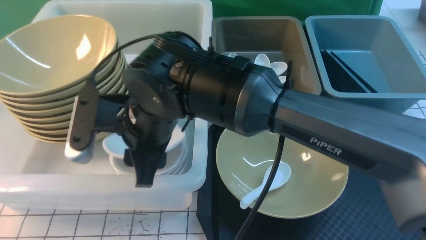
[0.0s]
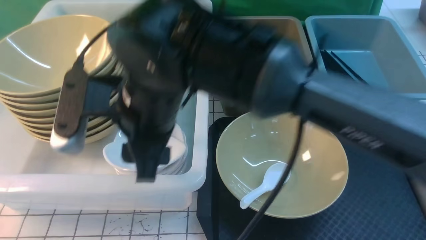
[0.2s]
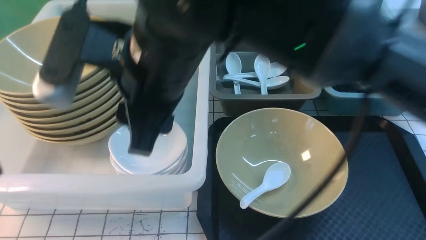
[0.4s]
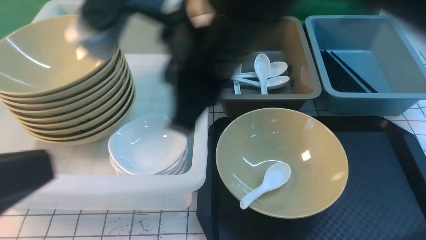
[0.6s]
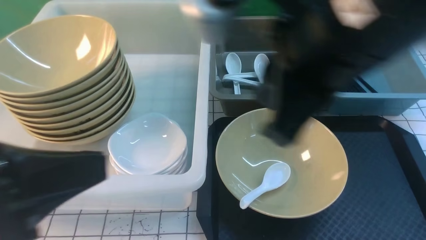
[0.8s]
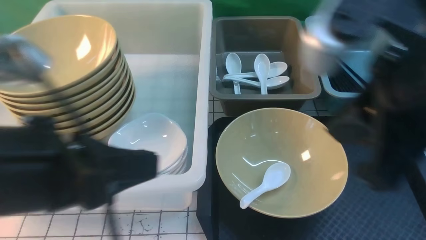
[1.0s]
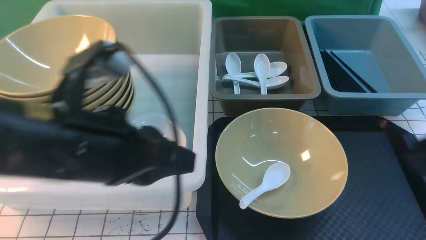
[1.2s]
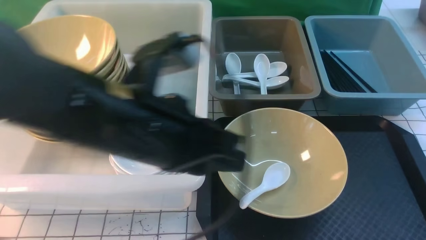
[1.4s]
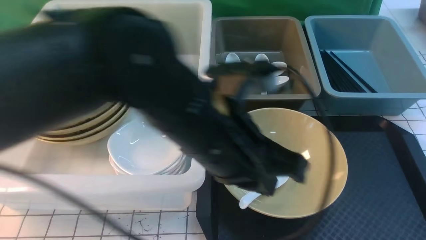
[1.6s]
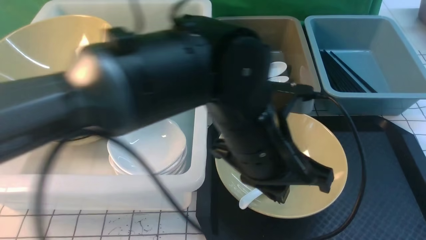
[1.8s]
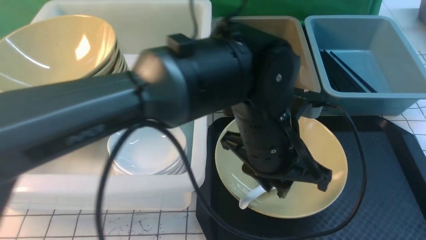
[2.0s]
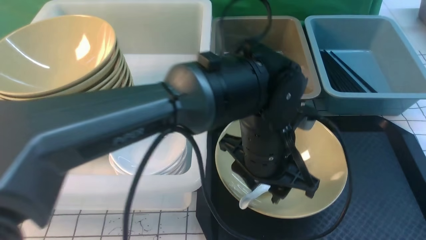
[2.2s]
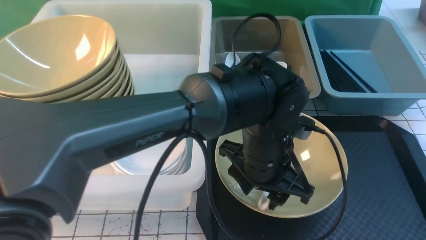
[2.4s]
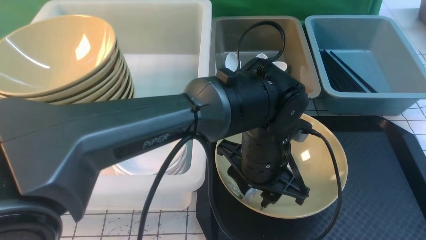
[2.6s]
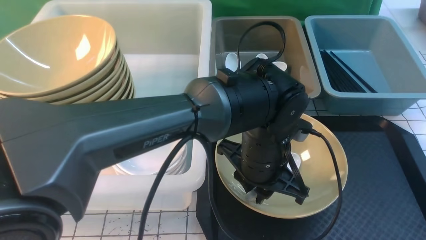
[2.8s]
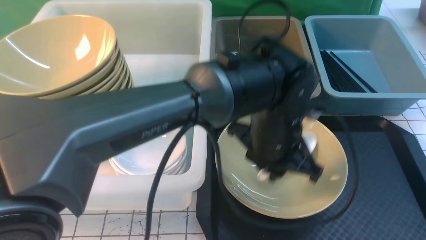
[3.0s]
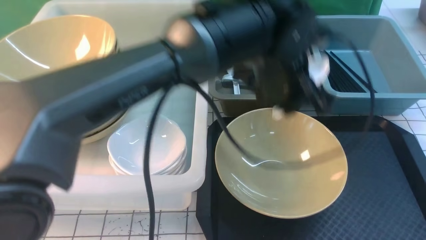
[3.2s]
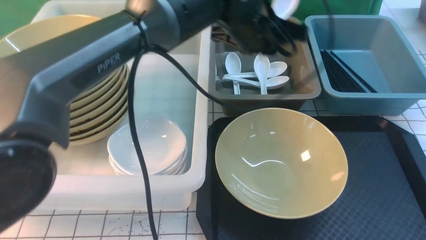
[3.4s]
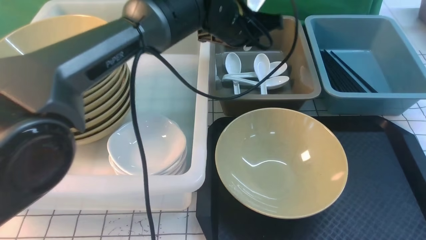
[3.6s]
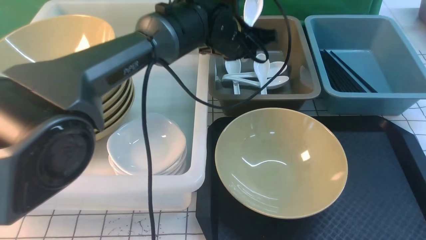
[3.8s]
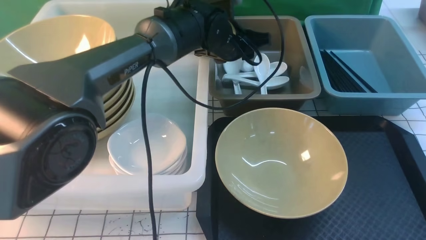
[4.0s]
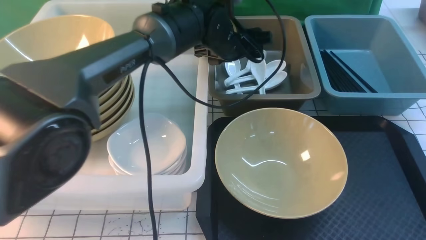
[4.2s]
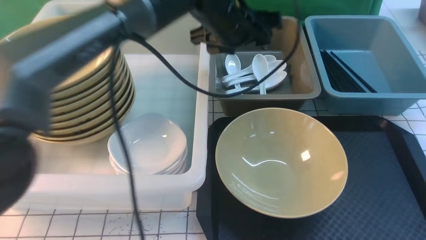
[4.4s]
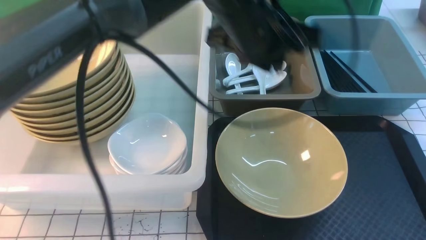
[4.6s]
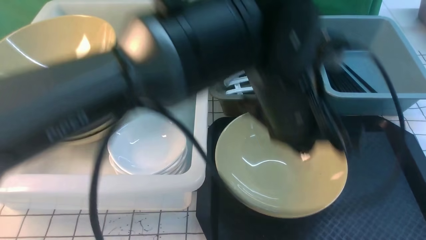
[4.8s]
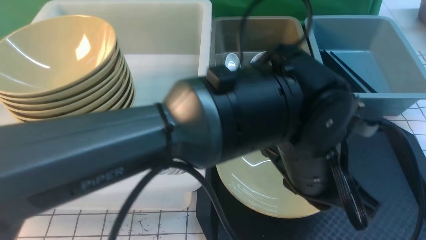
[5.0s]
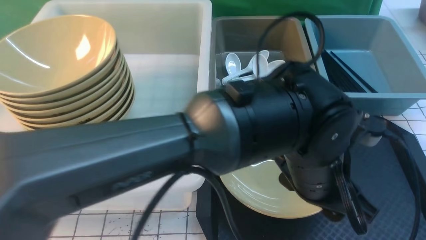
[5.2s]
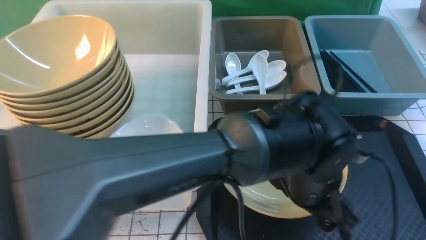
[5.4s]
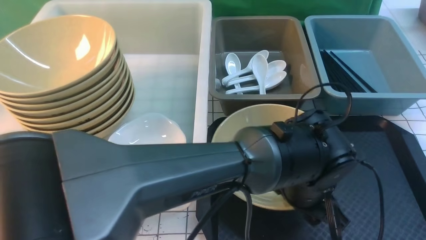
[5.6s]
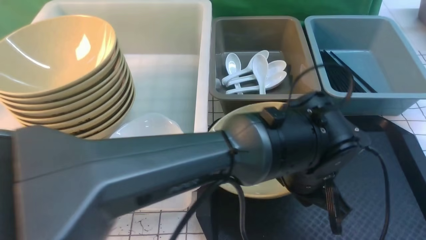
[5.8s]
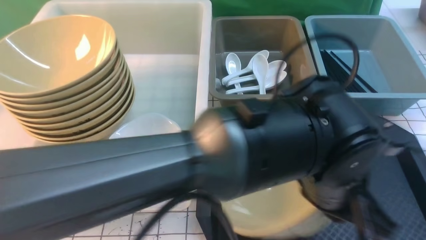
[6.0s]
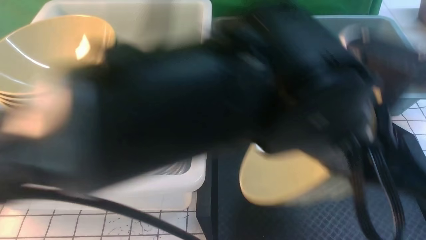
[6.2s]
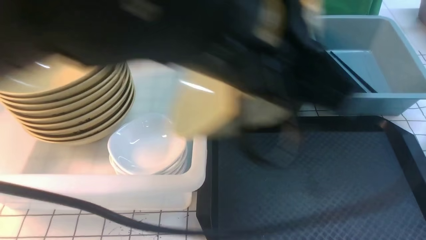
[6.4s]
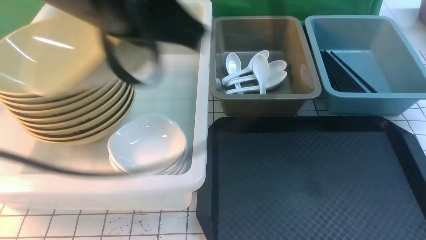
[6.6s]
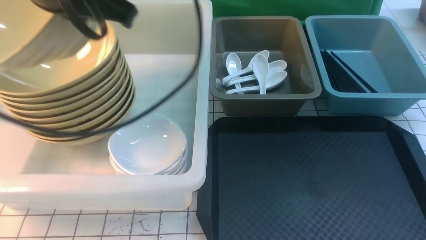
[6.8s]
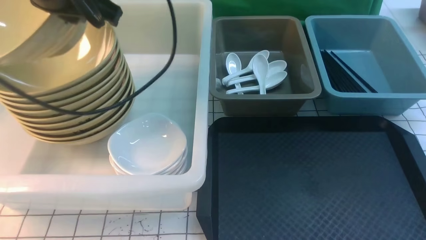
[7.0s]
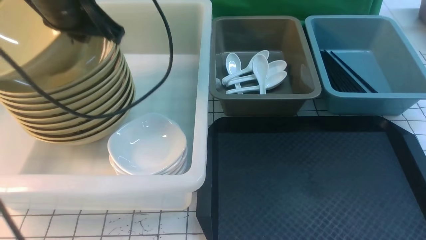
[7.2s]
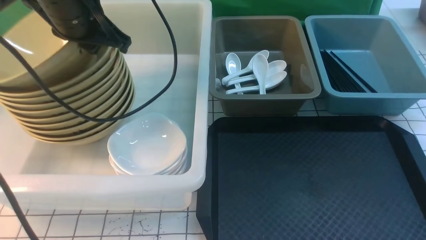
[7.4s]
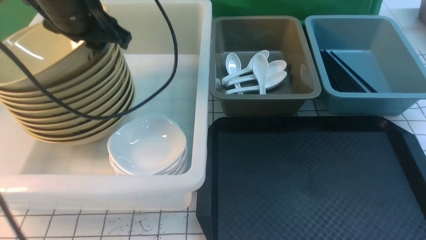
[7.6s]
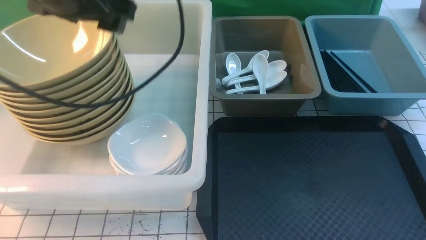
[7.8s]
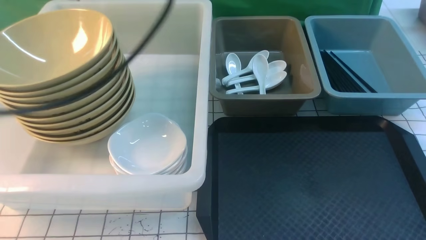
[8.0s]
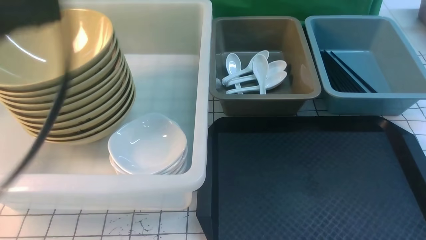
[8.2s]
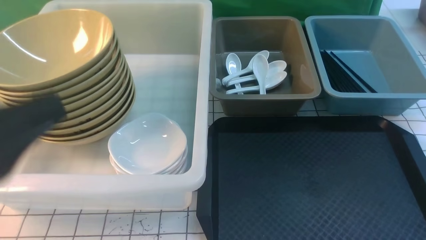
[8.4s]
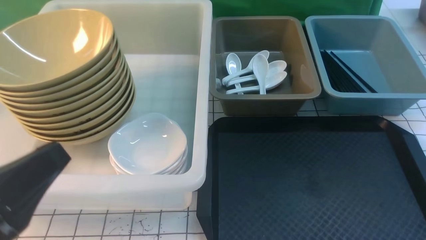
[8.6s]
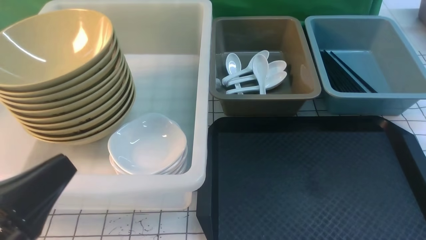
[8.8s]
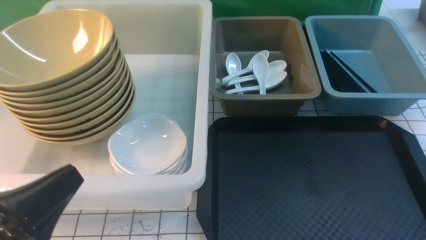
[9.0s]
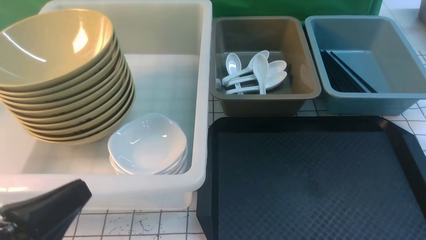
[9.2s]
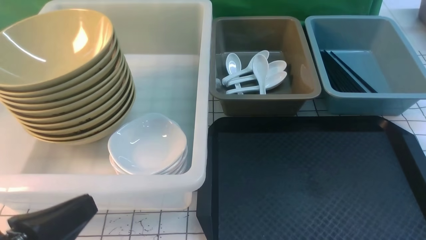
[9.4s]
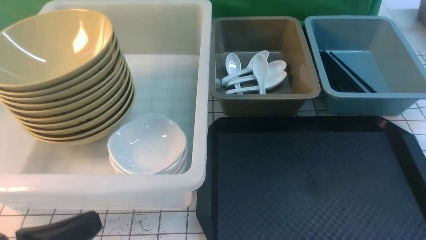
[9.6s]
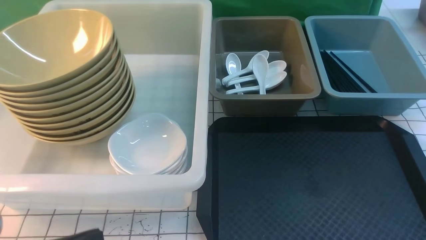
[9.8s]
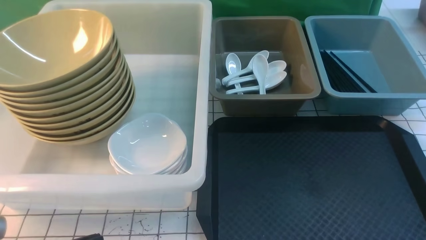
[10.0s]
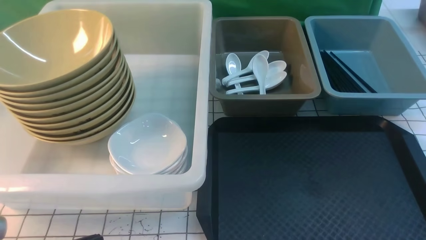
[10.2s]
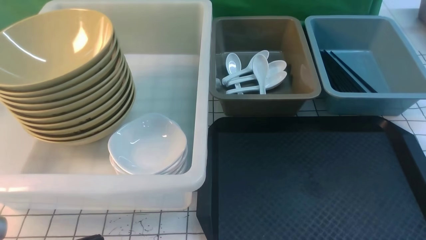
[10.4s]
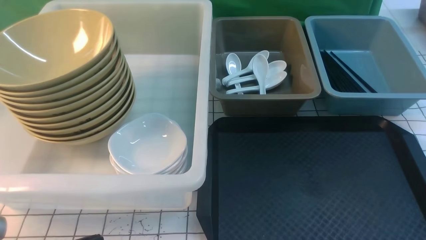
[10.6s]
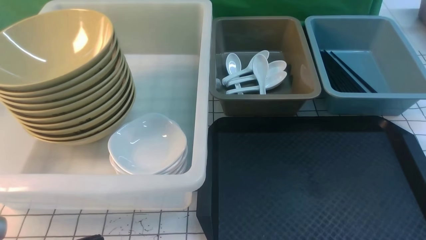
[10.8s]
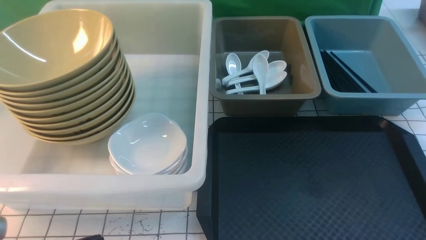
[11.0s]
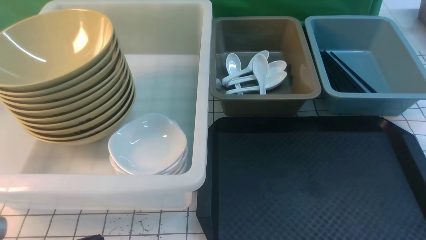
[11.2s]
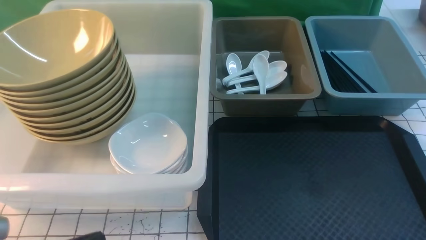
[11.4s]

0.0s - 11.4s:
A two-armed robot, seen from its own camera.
Task of the whole recording: on white black table put chopsticks spoon bowls plates into blue grey white boxes.
Step, 0.8s - 2.8s: use the left arm to grab the soup spoon in the middle.
Step, 3.2s - 4.4s: use the left arm to put the soup spoon into the small storage box in the middle.
Step, 4.6s - 6.0s: use the left arm to grab the yellow noodle bowl on the left.
Step, 6.4s - 7.6s: use the left arm to put the noodle bowl into the large storage box on the left.
0.0s - 1.4s: The right gripper travels to the right and backward by some 40 cm, and closes. The left gripper goes roughly 25 cm to the right and forward.
1.4s - 2.8s: The right gripper heads to the right and backward, covering about 10 cm; the left gripper is displaced to the right, downward and forward by approximately 20 cm, and opens, then closes again.
2.8s - 4.2s: The left gripper travels forward by roughly 15 cm, and opens.
4.2s - 5.6s: The left gripper travels backward and to the right by some 25 cm, and closes and opens again.
5.6s - 7.2s: The left gripper is displaced to the left, upward and forward by approximately 35 cm, and closes its fingers. The right gripper travels to the left and forward by approximately 10 cm.
7.2s - 8.6s: The left gripper heads backward, covering some 30 cm, and opens and closes again; the right gripper shifts about 5 cm downward.
8.6s - 10.0s: The left gripper travels downward by roughly 10 cm.

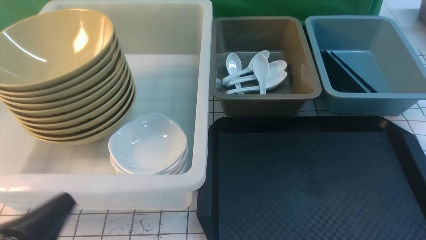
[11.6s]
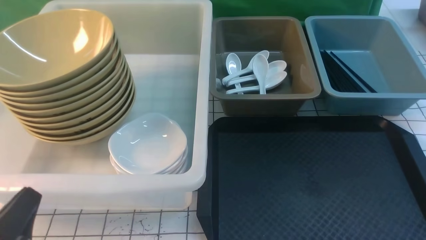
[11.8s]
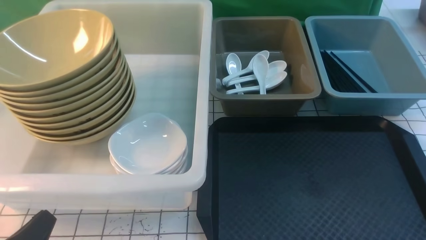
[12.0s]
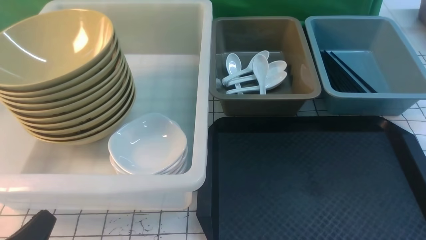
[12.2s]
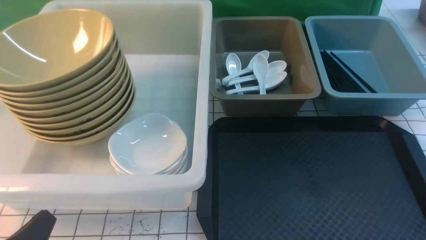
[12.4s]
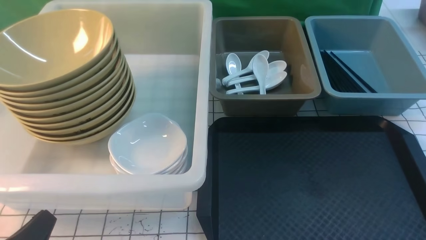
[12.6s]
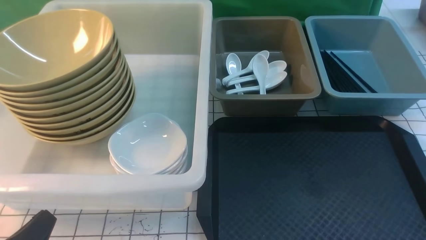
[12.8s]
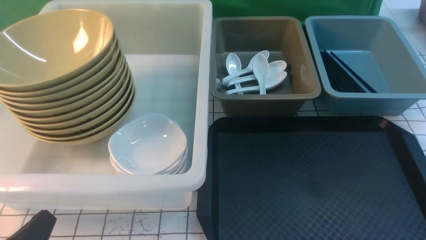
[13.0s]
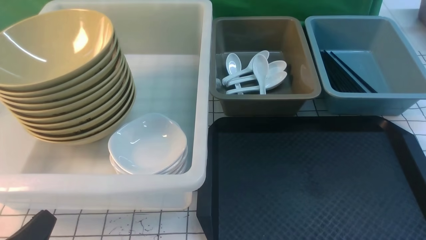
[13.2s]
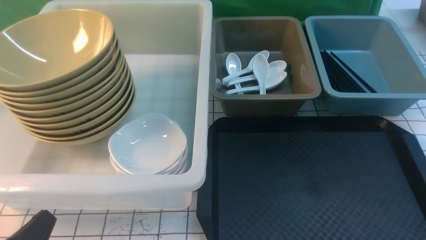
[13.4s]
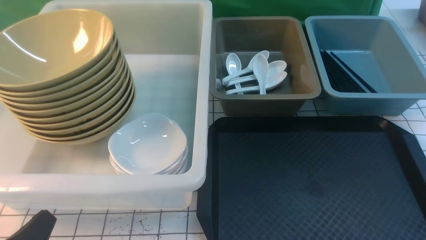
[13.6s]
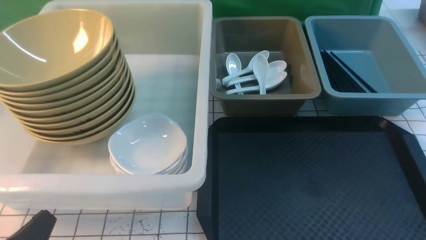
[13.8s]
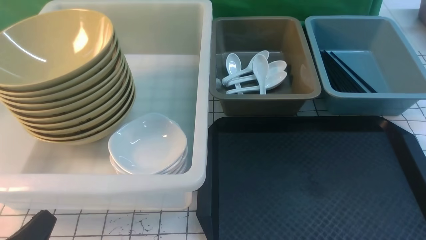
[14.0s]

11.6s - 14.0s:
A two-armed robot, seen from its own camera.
Task of the whole recording: on white black table put chopsticks spoon bowls plates into blue grey white boxes.
11.6s - 12.8s: The grippers move only a little.
12.8s - 14.0s: The two grippers keep their place.

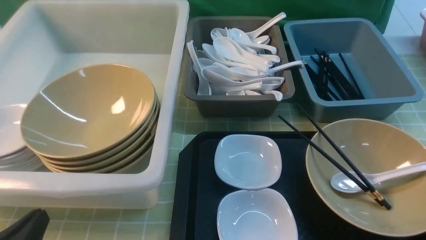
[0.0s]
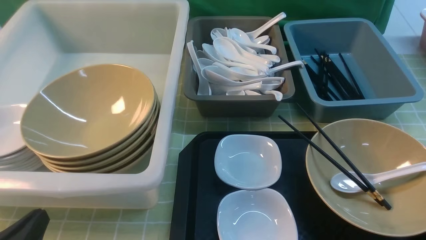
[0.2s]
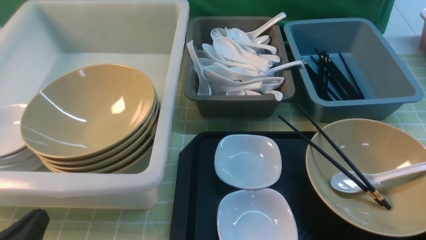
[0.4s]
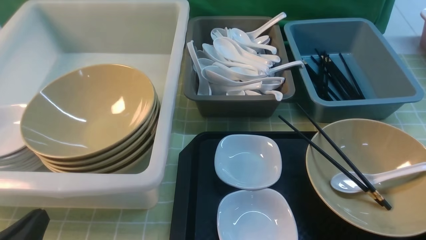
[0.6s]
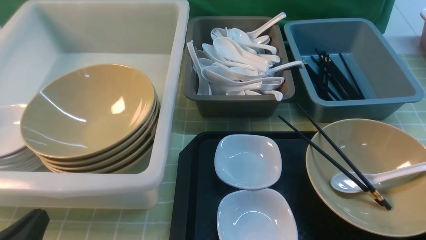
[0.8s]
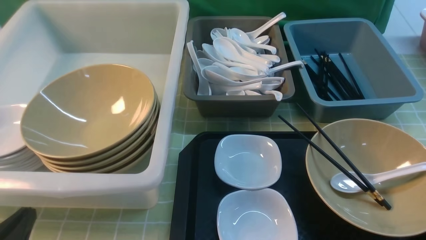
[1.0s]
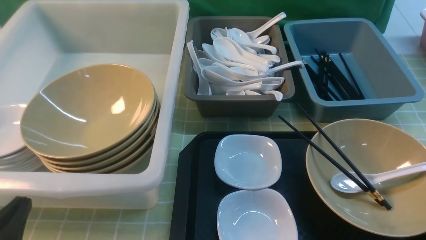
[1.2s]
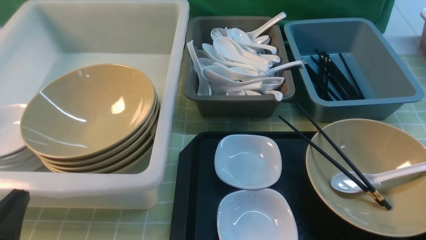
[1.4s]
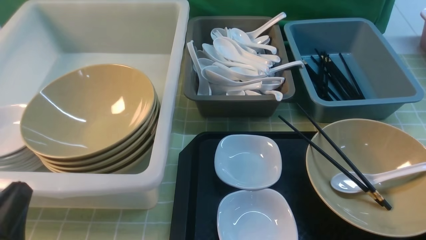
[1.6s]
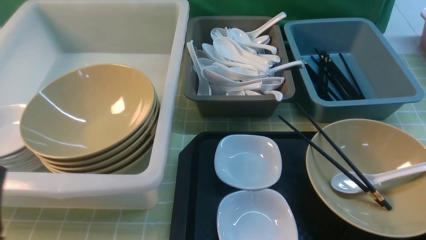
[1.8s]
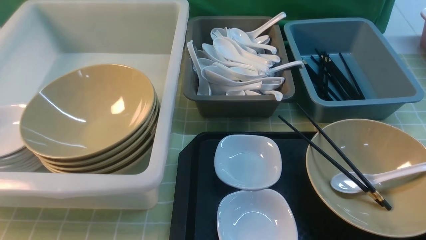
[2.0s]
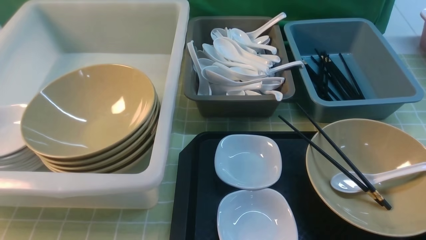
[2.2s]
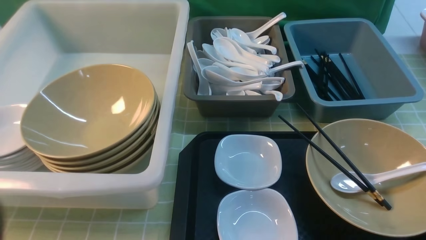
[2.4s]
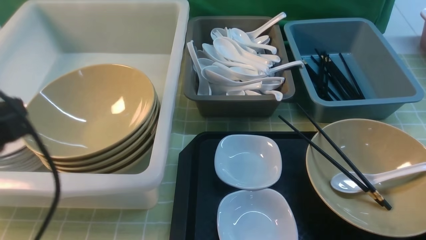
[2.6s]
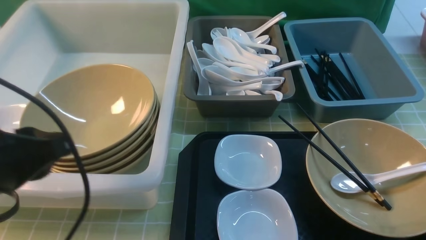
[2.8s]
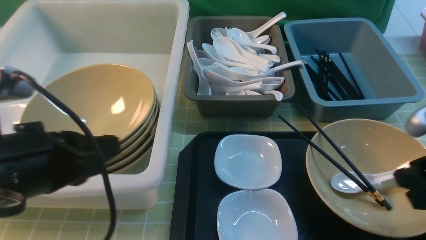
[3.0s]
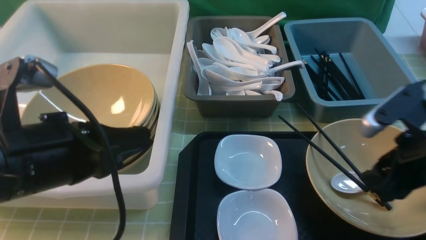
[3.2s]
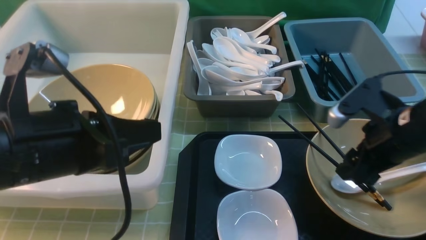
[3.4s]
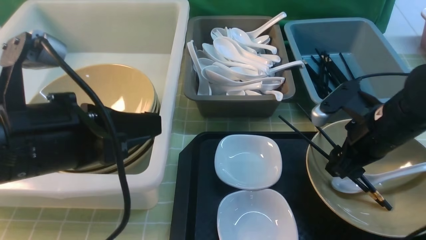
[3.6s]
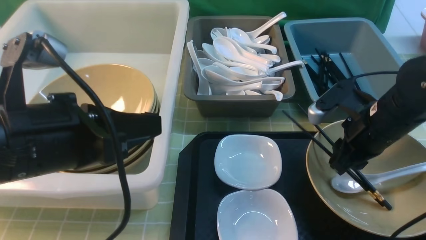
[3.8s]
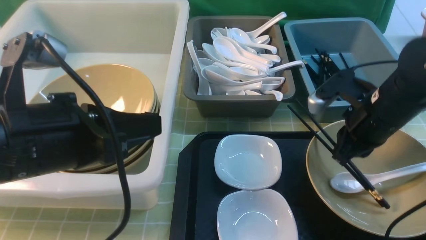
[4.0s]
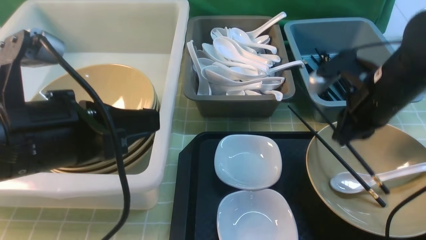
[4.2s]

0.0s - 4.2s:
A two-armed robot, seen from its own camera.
Task of the whole recording: on green table put chopsticks spoon bowls plates into blue grey white boxes.
Step, 0.0s - 4.2s: use the right arm to grab a chopstick.
1.4s - 2.8s: The left gripper travels upward and forward by about 15 cm.
2.8s - 4.2s: The left gripper is displaced to the right by approximately 5 cm. The right gripper moves forward, to the left and downward, approximately 20 cm, and closes its fingers.
